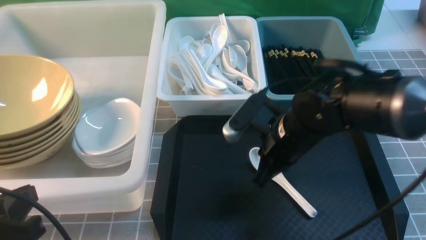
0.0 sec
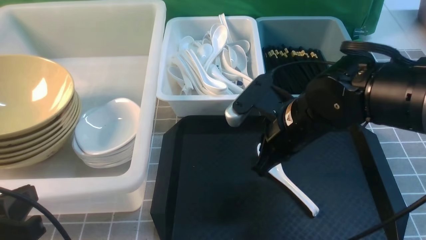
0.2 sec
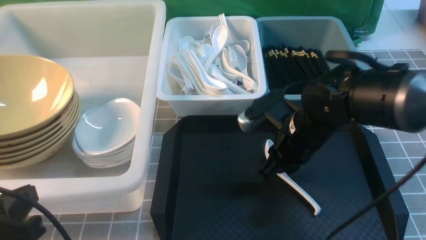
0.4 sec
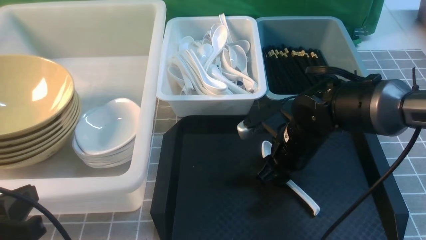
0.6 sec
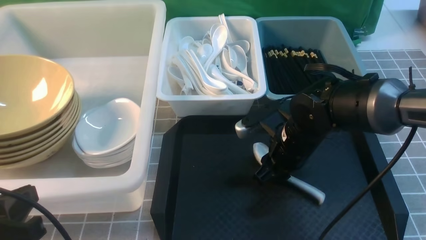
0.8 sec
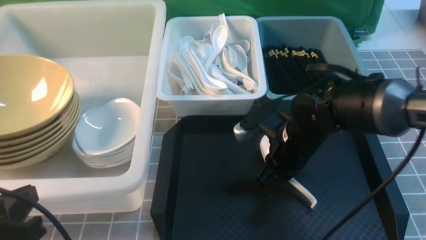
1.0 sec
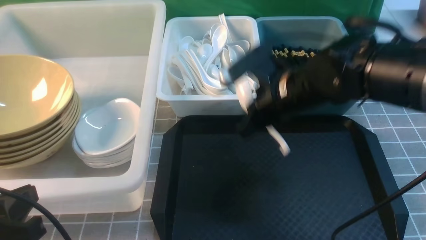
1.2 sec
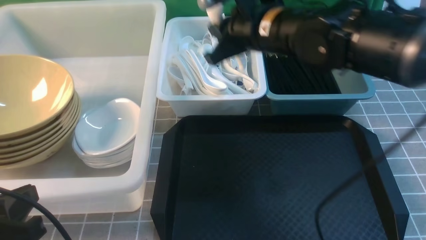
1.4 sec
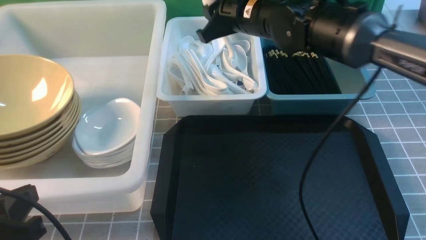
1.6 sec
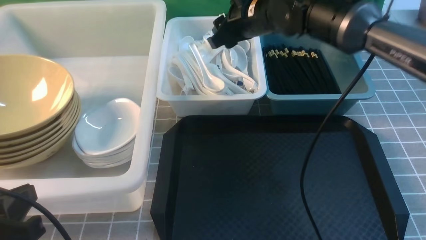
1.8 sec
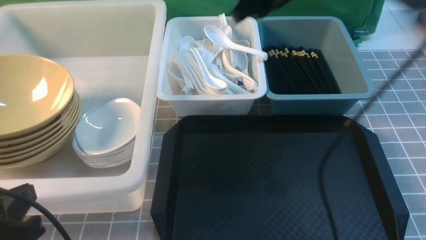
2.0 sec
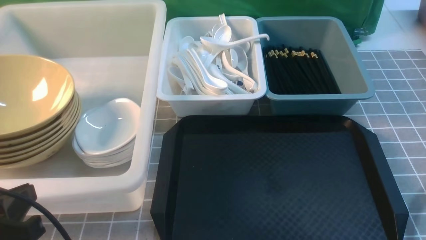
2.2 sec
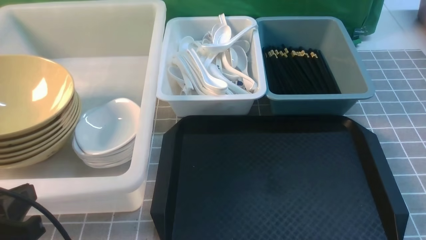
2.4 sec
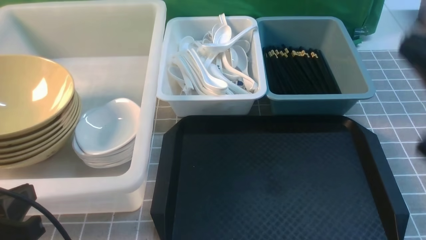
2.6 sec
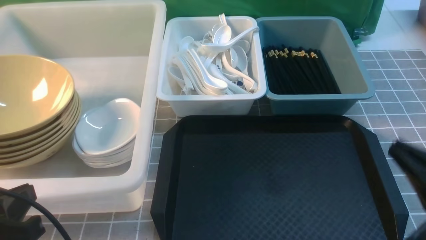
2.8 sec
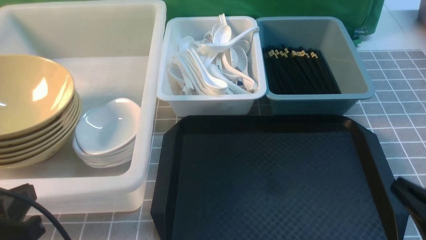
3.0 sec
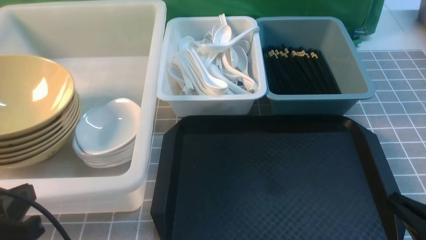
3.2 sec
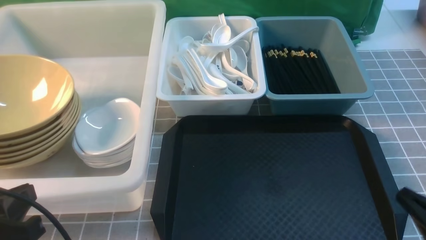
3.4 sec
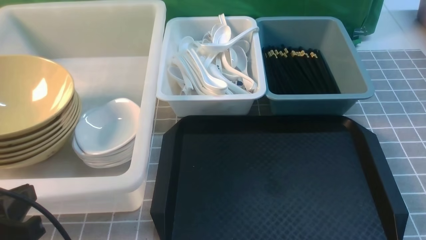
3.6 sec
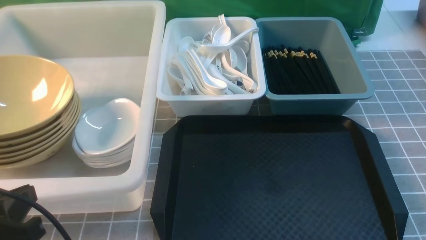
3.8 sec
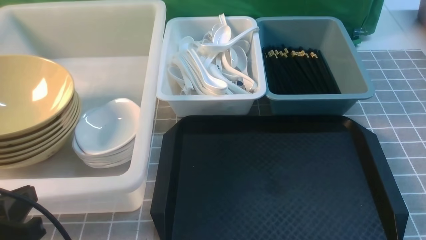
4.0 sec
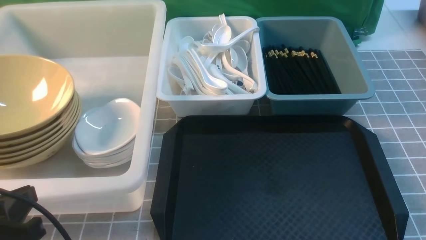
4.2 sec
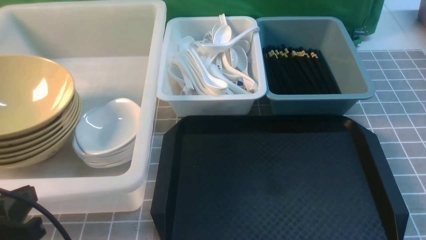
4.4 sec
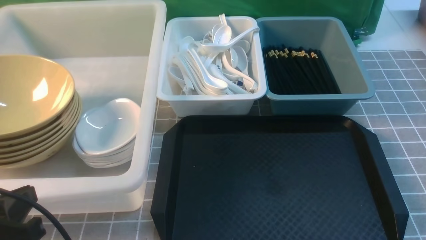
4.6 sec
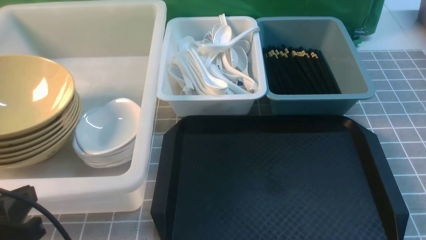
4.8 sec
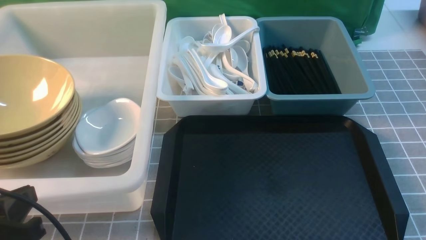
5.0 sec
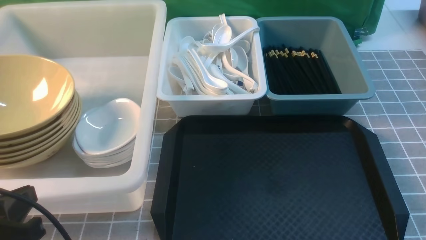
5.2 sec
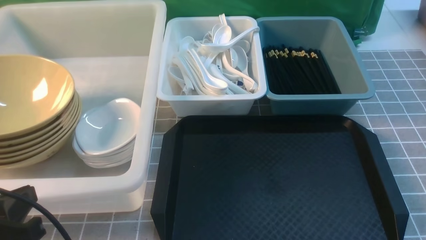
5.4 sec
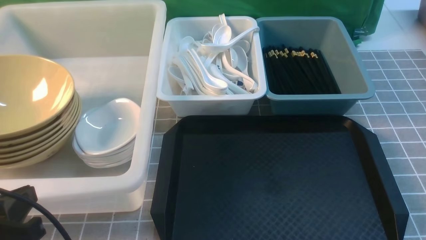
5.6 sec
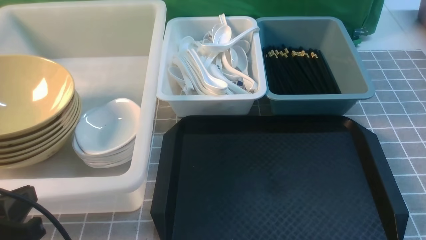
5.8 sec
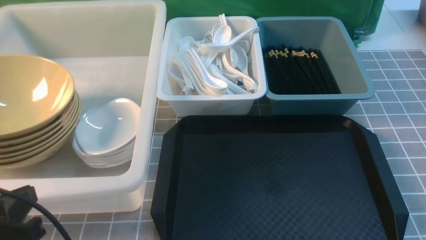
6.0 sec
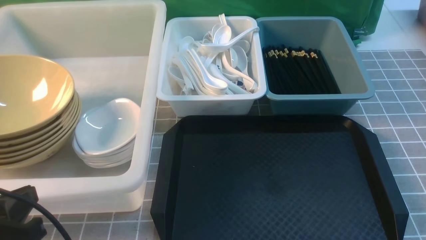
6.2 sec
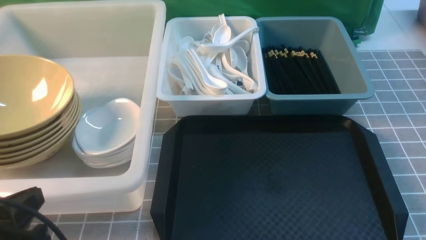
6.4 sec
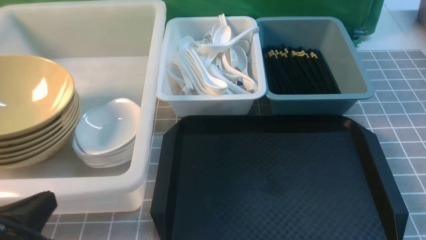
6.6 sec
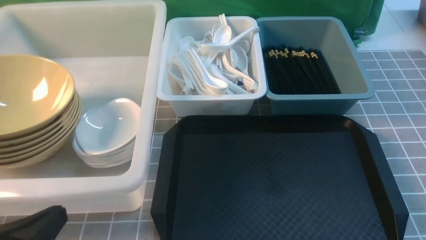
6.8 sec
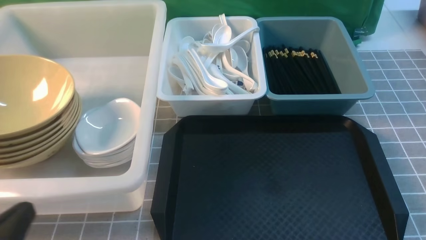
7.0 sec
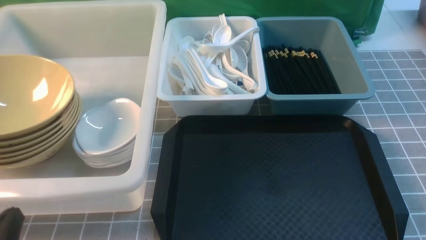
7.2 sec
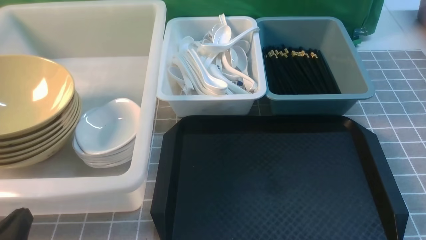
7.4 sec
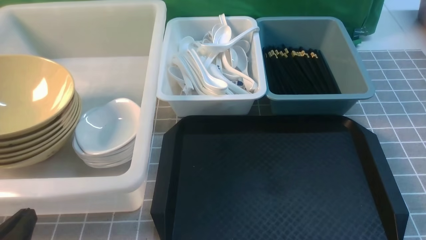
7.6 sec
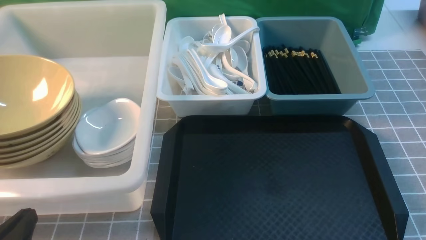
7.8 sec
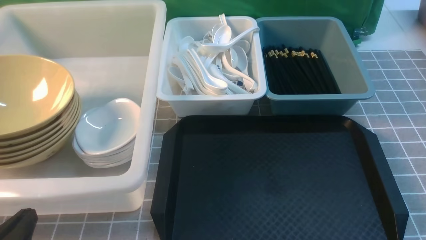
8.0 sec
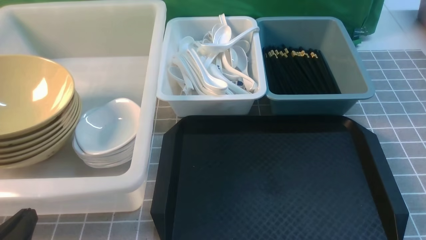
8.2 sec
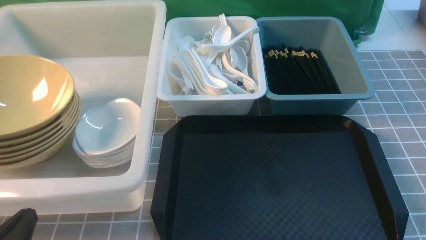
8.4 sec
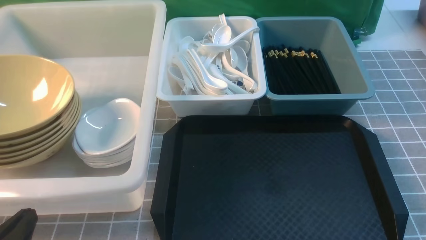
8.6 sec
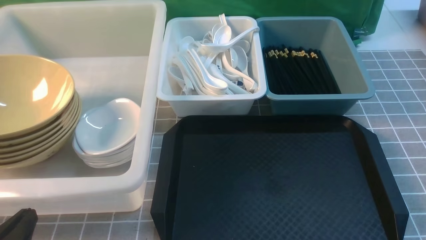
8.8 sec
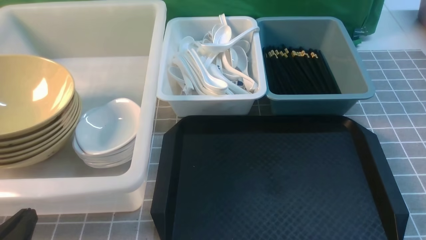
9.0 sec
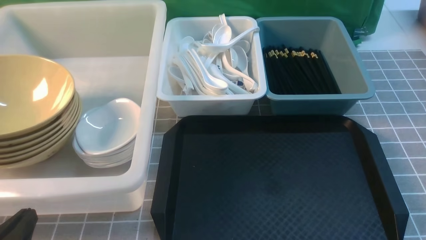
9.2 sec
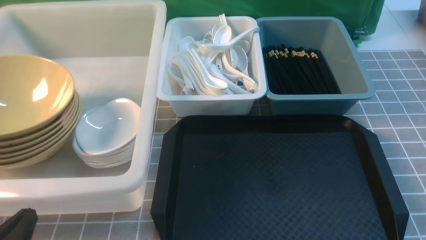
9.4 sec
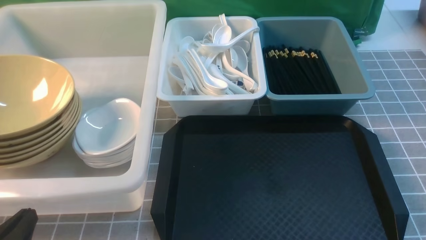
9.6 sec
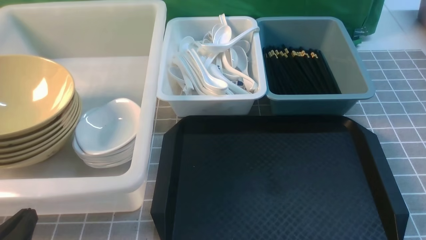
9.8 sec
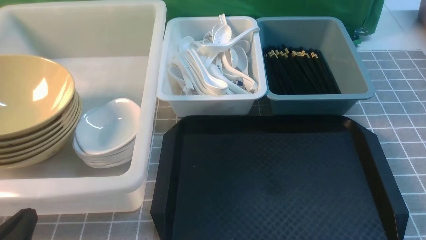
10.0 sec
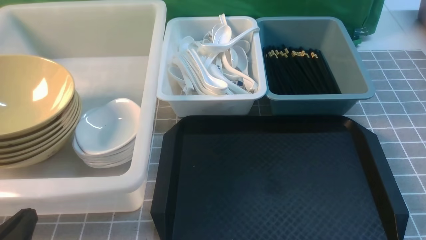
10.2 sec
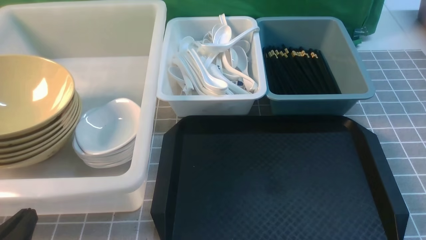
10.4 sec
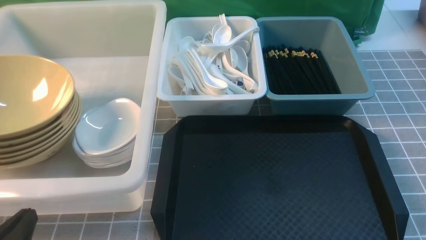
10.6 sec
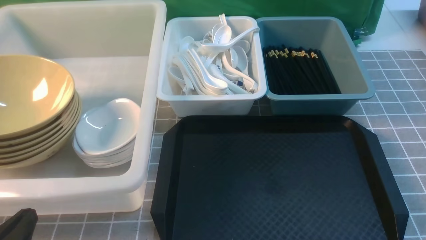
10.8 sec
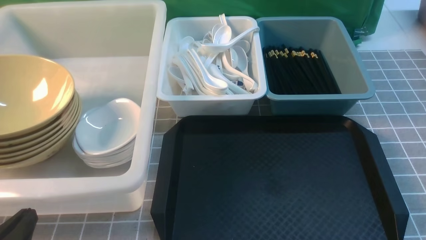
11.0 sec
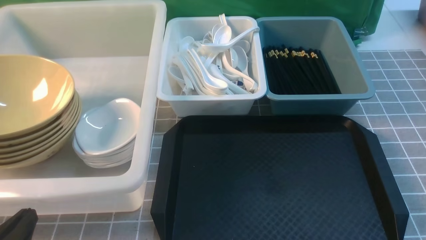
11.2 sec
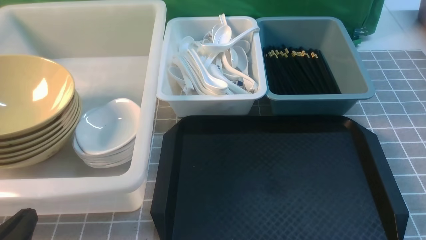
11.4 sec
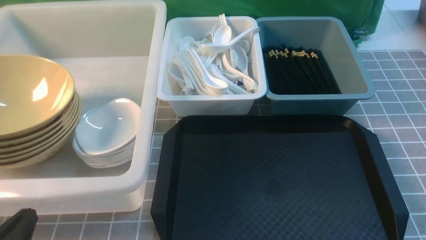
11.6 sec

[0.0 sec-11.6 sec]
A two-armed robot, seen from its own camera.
Task of the whole recording: on grey table put chopsticks spoon bowls plates into blue grey white boxes.
Step, 1.2 sec to 1.8 sec: use the right arm to put the soup spoon into the small storage box in the middle.
0.0 sec to 1.4 sec: The right gripper travels upward and forward by roughly 15 cm.
1.4 sec to 2.8 sec: The right gripper moves backward and to the right, roughly 35 cm.
2.8 sec to 4.4 sec: The right gripper moves downward and to the right, some 10 cm.
4.4 sec to 5.8 sec: Both grippers stay put.
5.8 sec to 7.2 sec: The left gripper is displaced downward by some 5 cm.
8.8 sec to 11.6 sec: Both grippers stay about where they are.

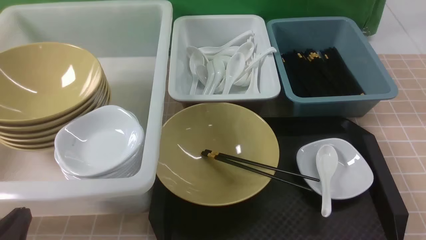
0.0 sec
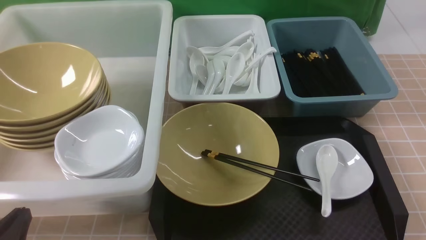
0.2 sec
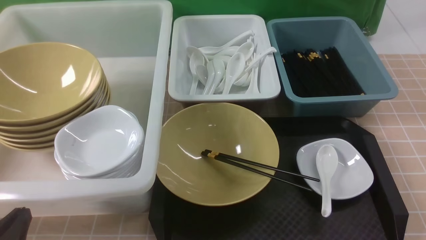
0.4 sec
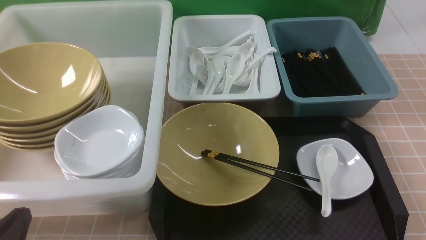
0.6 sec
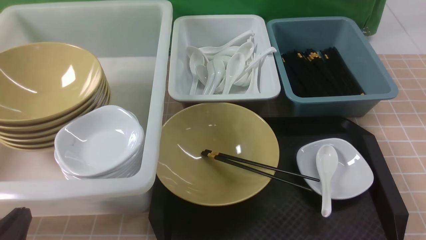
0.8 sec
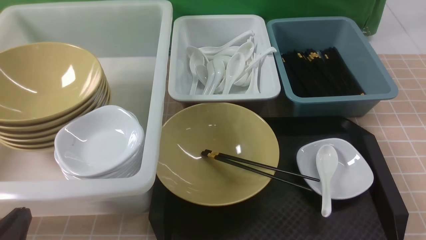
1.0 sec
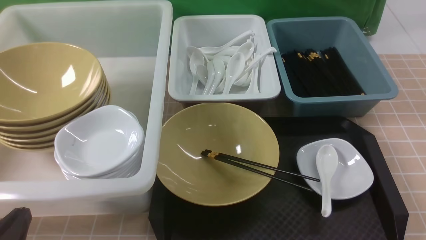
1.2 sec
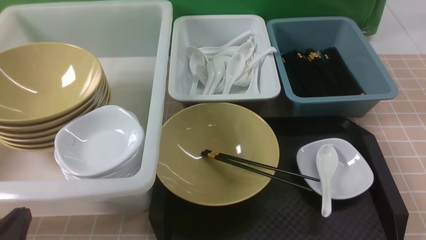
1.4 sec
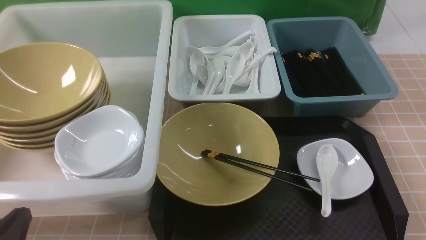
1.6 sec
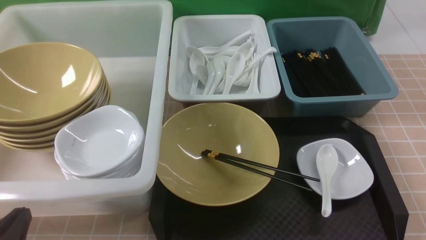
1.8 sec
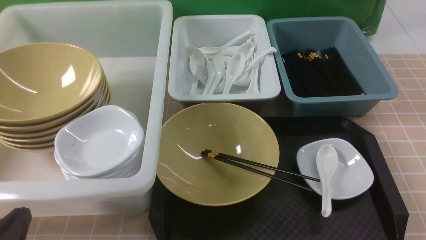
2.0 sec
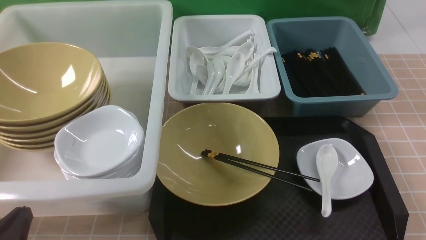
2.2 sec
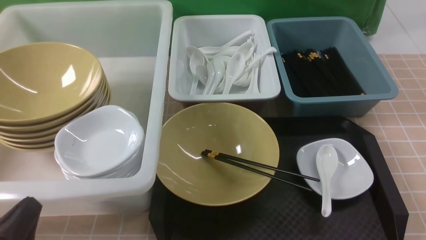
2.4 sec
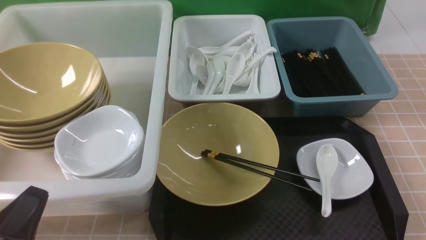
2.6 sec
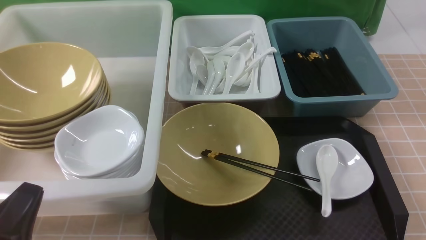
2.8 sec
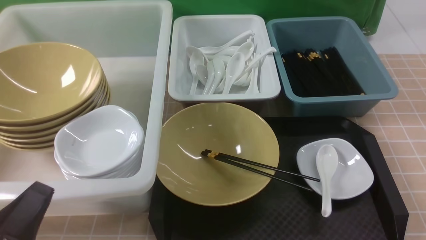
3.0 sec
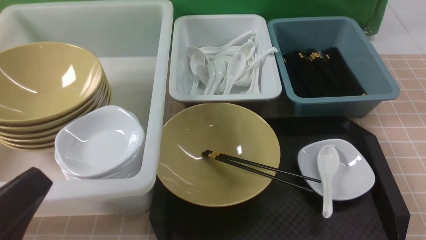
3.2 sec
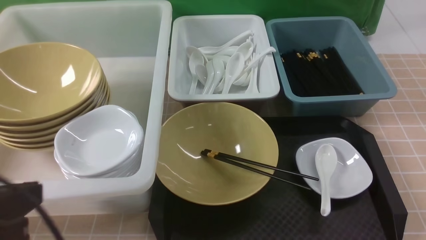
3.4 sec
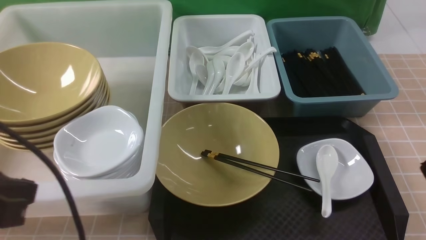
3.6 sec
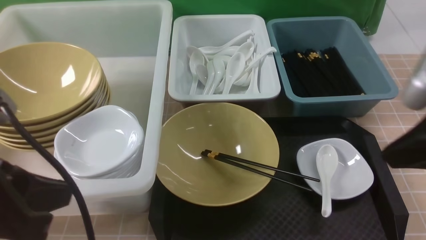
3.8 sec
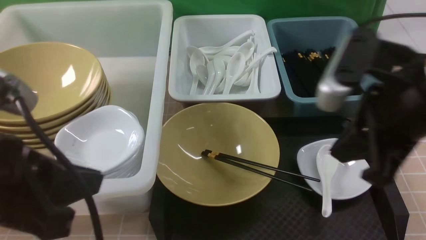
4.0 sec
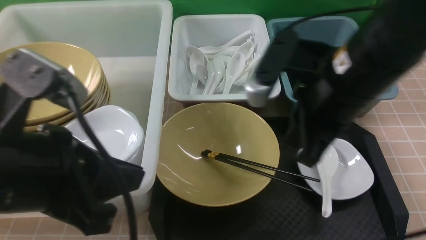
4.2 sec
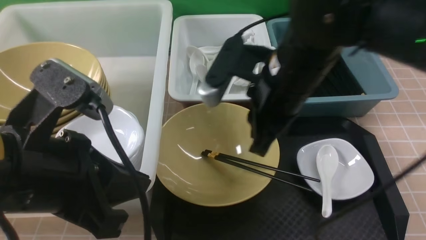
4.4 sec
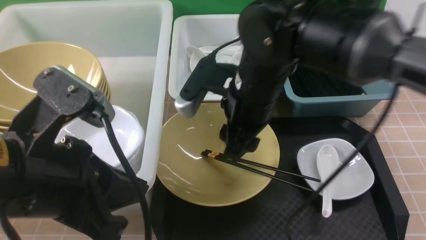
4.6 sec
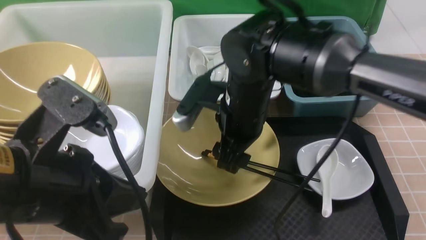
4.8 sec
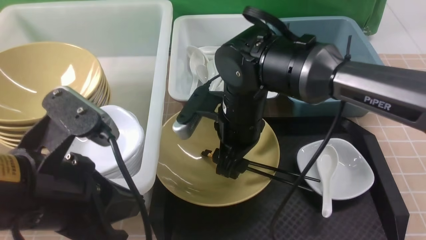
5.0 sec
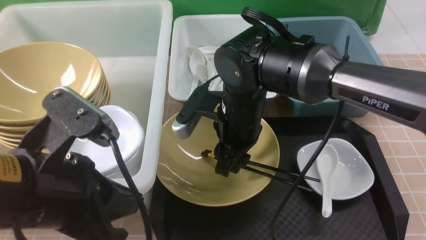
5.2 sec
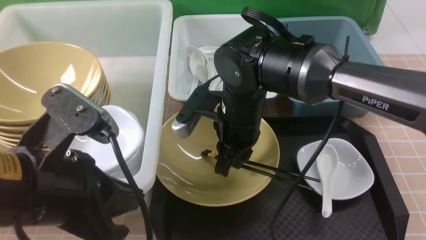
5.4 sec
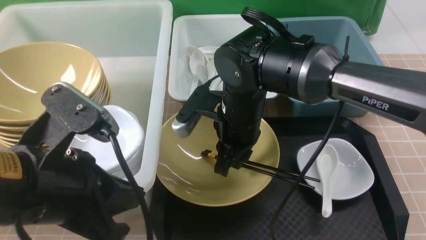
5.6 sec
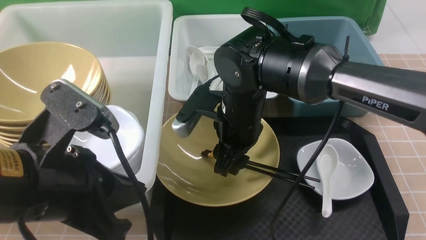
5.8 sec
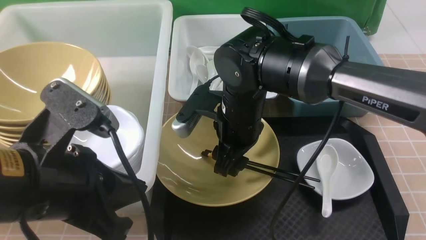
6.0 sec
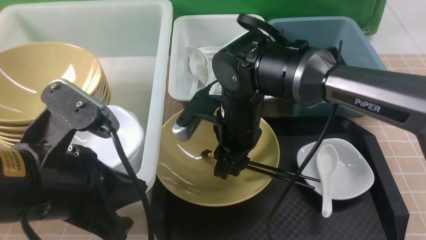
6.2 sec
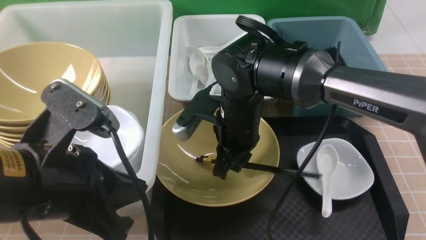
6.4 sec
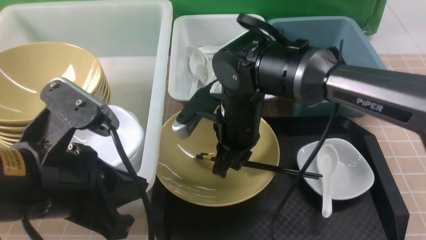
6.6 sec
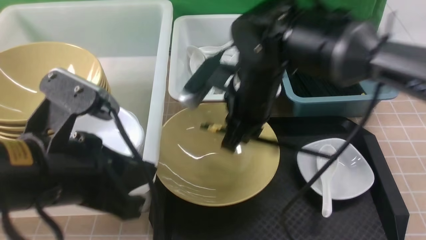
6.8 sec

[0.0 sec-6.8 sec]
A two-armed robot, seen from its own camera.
Task of the whole recording: on brown table put chopsticks spoon bowls plates into blue grey white boxes.
0.0 sec to 1.4 sec: Both grippers stay about where they are.
2.8 sec to 4.0 sec: The right gripper shifts approximately 30 cm upward, forward and to the left, and closes its fingers. The left gripper heads upward, covering roughly 15 cm.
4.0 sec to 5.4 sec: The right gripper is displaced to the left, downward and forward by roughly 20 cm, and opens its fingers. The left gripper ends up about 5 cm from where it was.
5.4 sec to 6.8 sec: The right gripper is displaced upward by some 5 cm, and opens and closes again.
